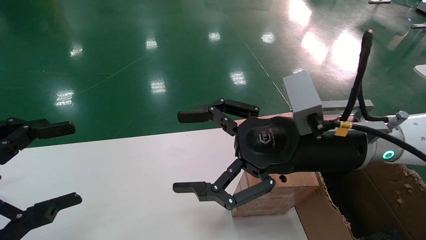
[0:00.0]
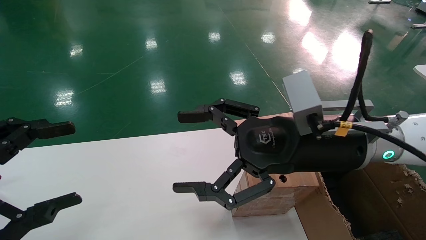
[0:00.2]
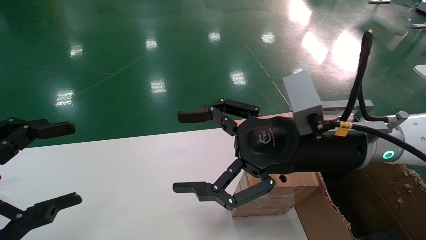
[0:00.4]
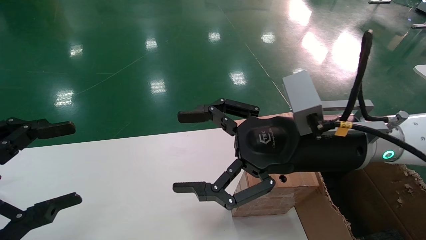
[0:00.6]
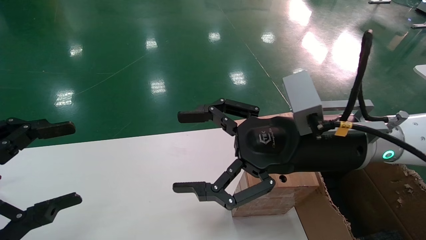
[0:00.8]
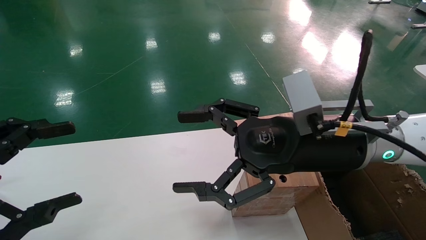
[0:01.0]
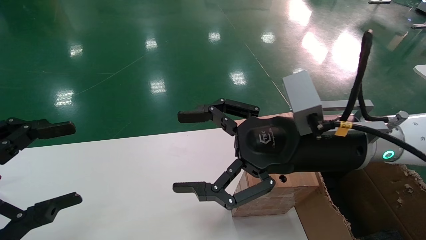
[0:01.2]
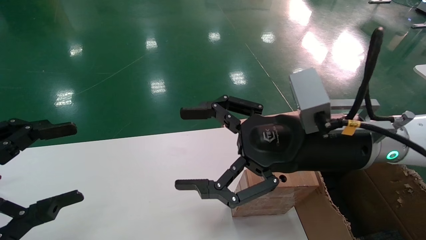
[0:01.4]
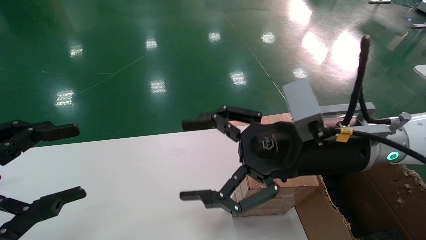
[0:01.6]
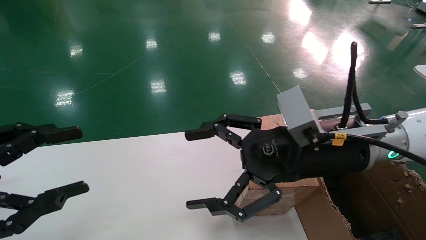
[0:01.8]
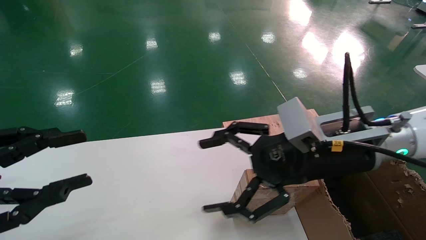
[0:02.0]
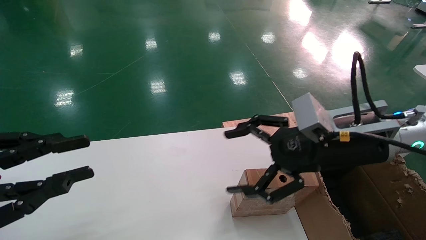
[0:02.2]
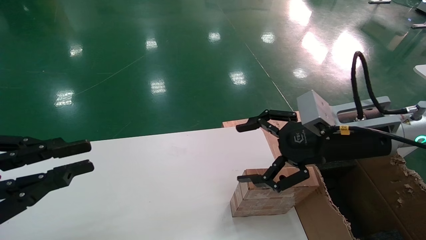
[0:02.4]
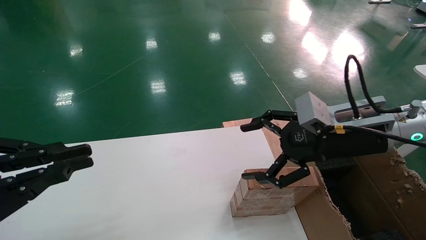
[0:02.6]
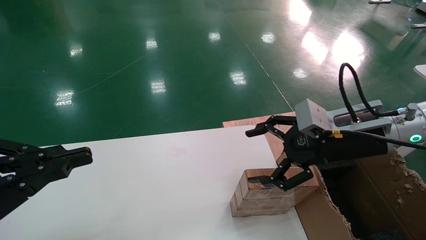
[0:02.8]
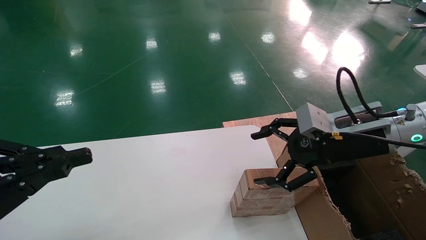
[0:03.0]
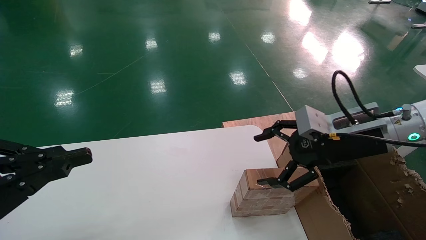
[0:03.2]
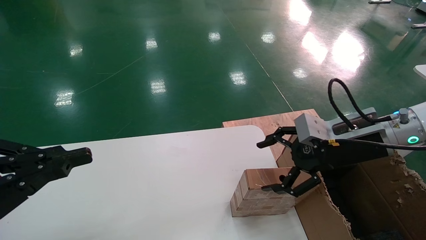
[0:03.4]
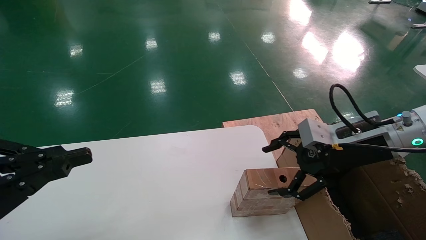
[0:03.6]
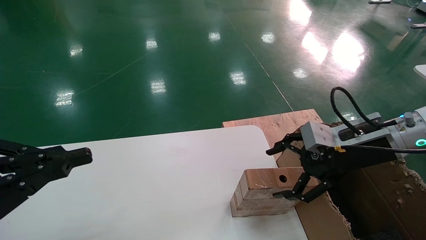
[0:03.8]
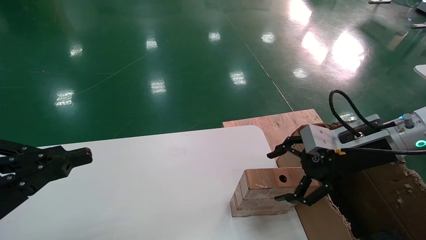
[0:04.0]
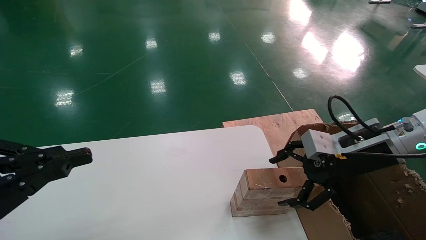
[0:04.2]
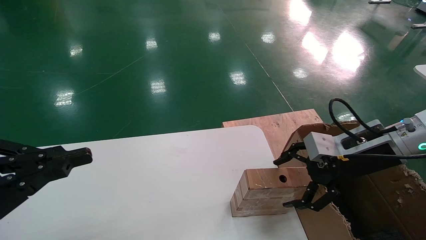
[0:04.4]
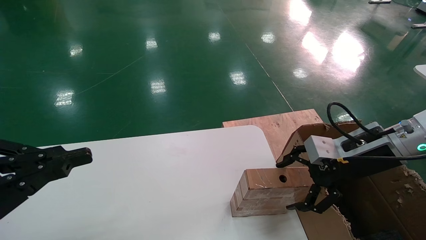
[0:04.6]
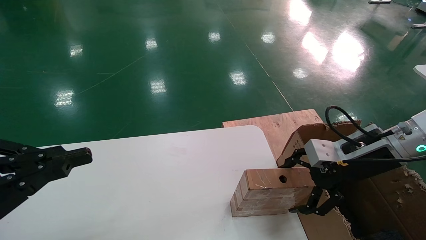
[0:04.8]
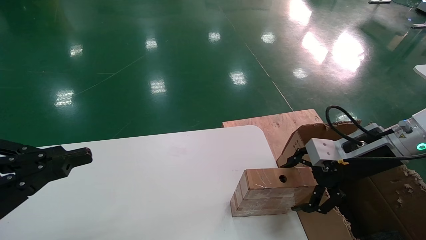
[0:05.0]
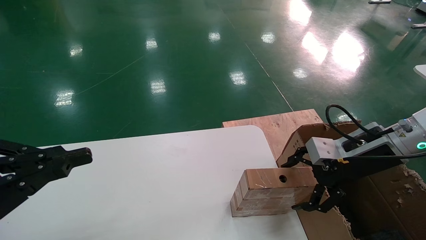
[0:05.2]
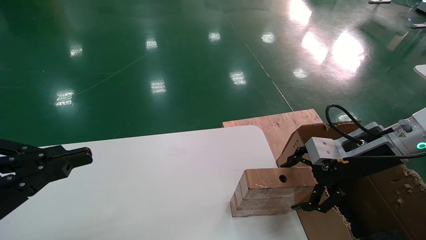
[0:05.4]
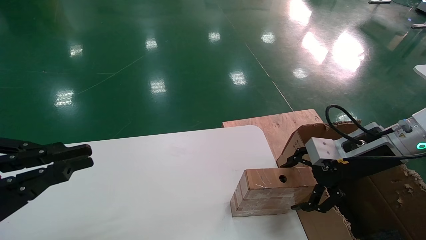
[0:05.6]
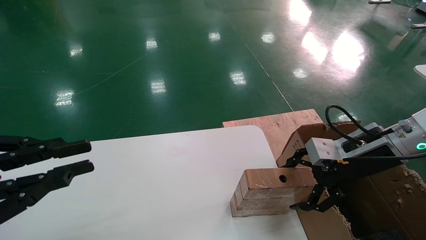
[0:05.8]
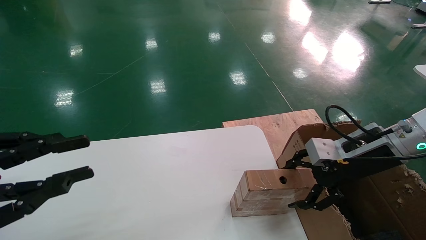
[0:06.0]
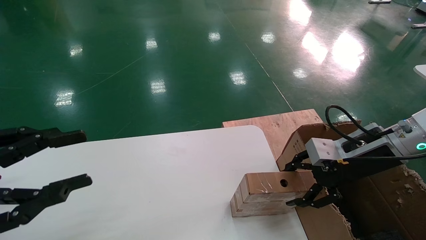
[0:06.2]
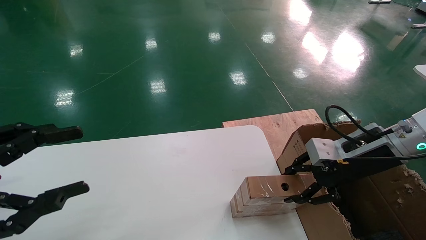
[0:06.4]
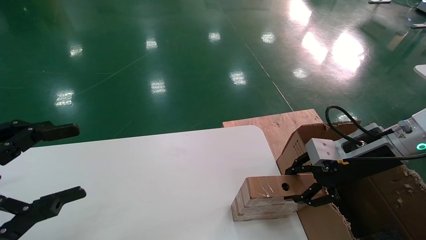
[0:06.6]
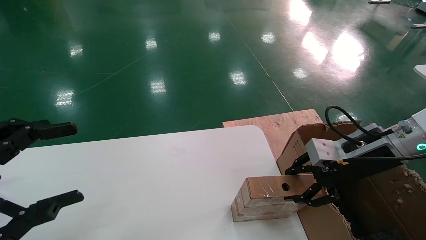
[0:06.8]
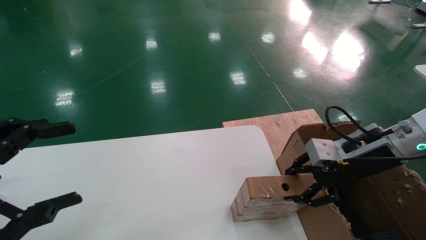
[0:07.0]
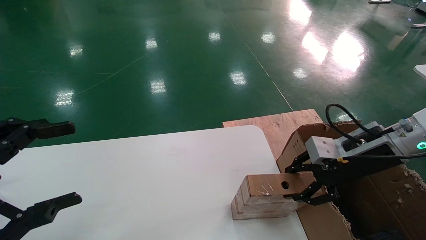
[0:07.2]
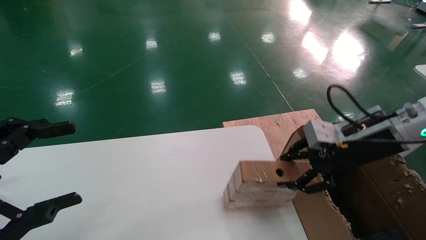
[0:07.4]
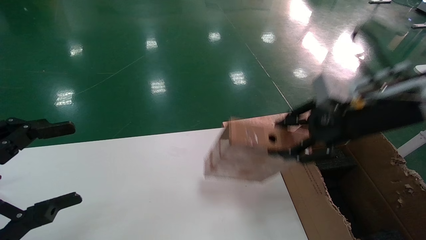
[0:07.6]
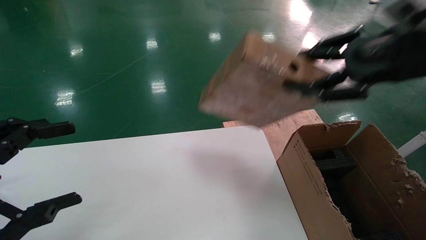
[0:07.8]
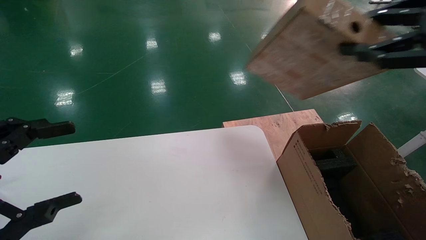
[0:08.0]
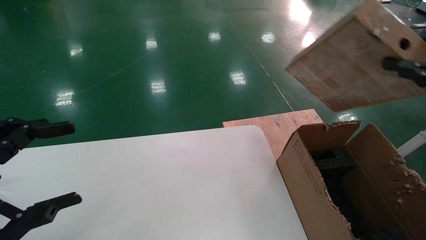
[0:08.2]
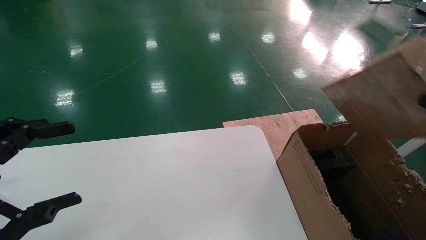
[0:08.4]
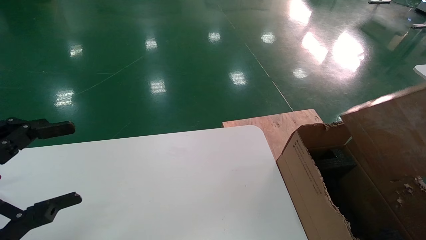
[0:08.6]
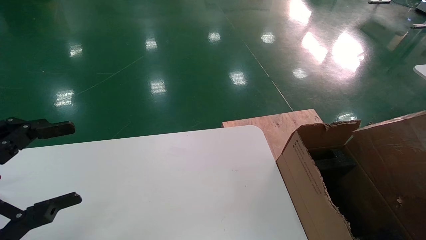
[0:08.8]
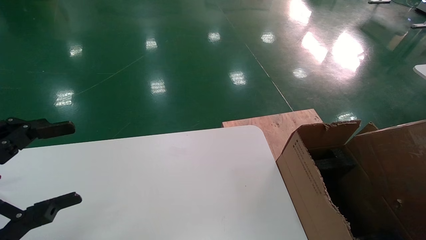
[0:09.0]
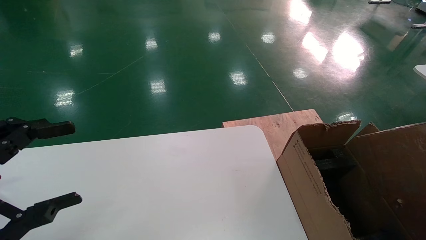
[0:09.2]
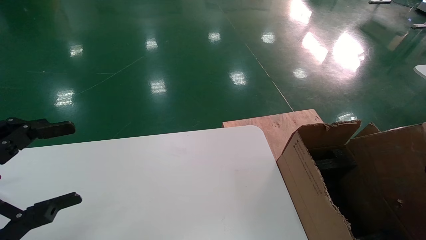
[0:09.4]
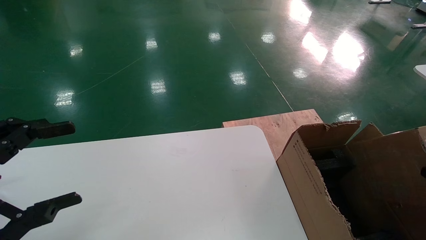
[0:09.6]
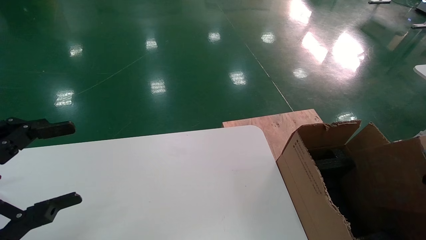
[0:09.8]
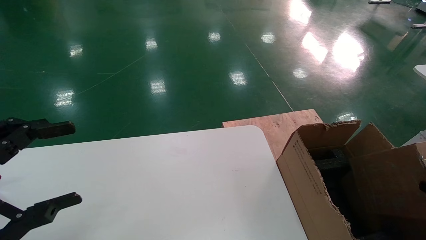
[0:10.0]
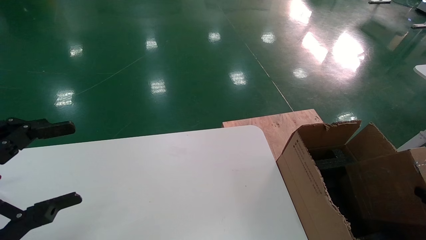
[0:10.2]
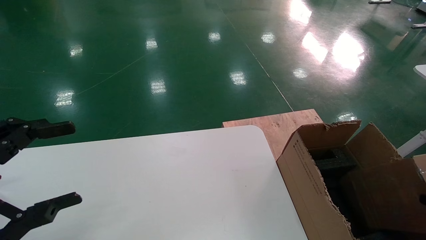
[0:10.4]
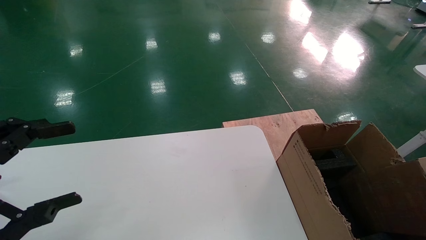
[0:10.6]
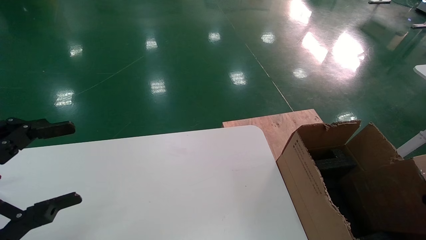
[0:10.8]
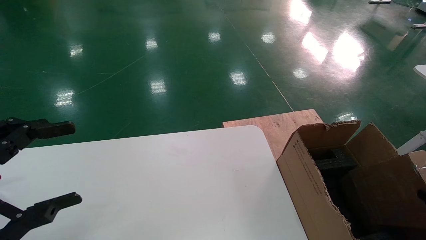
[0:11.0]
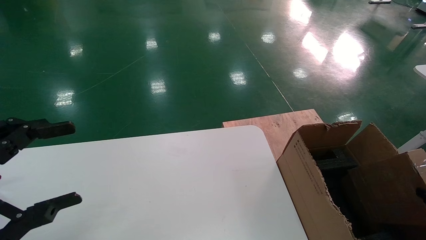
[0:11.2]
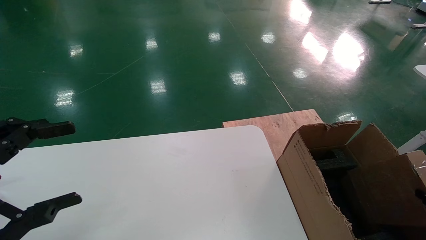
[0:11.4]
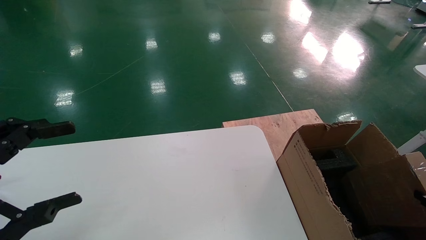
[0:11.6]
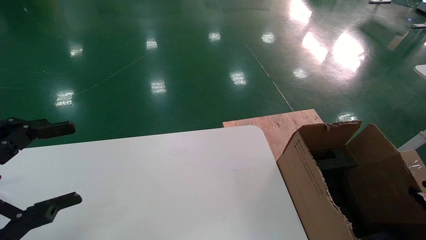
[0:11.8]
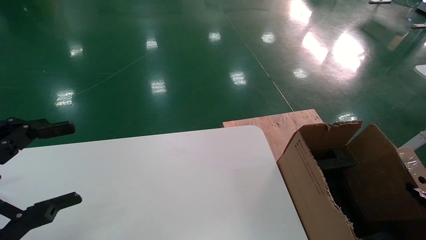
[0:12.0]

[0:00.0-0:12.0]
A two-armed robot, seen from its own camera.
Task of the whole recording: put the box on the table into the big box.
Step, 0:01.8 to 0:06.6: Pick up the mouse and the power cord paper box.
0:00.0 to 0:01.6: Both grippers stay put.
0:01.6 to 0:03.0: The right gripper heads to the right, covering roughly 10 cm, while the left gripper closes up.
0:03.0 to 0:04.4: The grippers stay close to where they were, moving slightly.
0:04.4 to 0:06.0: The grippers stay close to where they were, moving slightly.
0:06.0 to 0:07.6: The right gripper travels upward by roughly 10 cm, and closes up, while the left gripper opens its fingers.
0:07.6 to 0:09.0: The right gripper moves backward, to the right and downward, about 35 cm.
0:09.0 to 0:10.4: The right gripper travels downward by roughly 10 cm.
0:10.4 to 0:12.0: The right gripper goes roughly 5 cm forward.

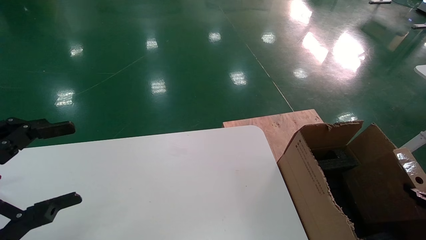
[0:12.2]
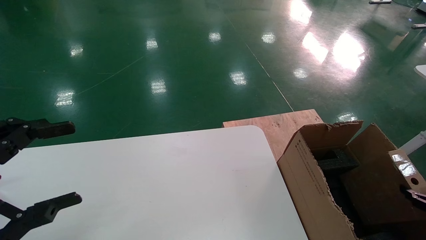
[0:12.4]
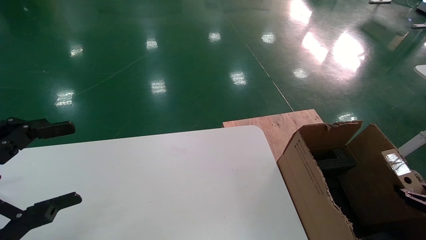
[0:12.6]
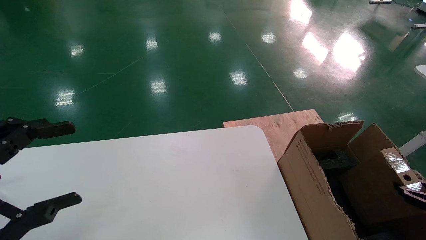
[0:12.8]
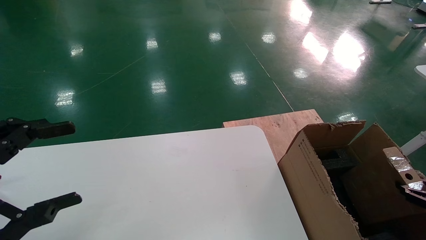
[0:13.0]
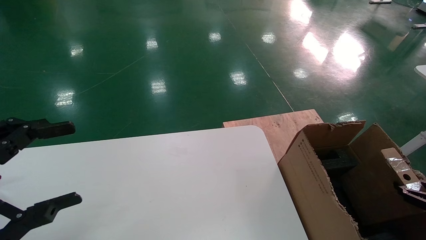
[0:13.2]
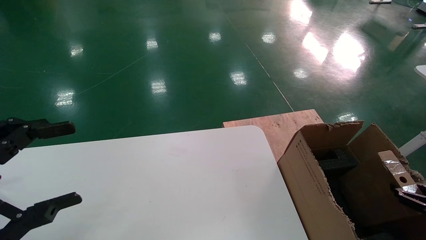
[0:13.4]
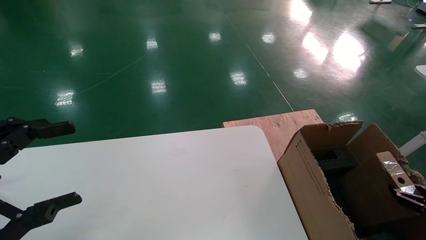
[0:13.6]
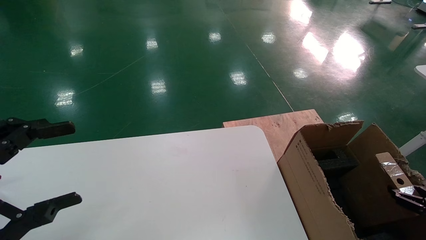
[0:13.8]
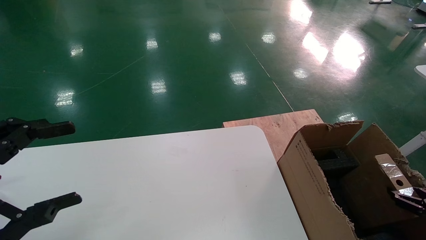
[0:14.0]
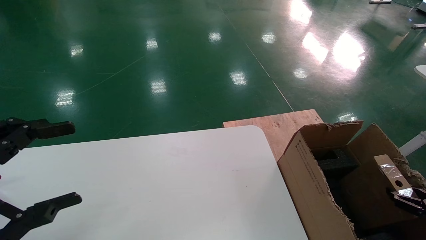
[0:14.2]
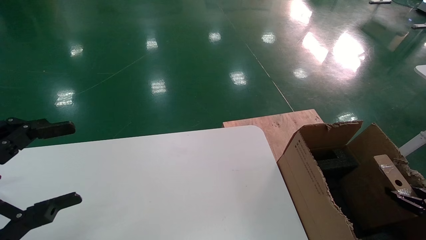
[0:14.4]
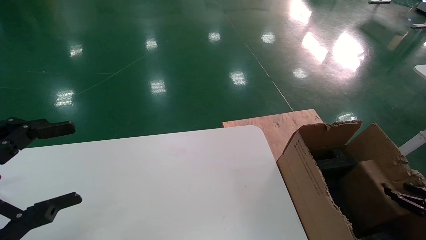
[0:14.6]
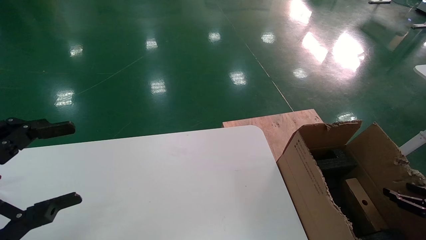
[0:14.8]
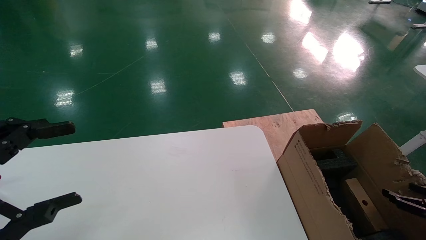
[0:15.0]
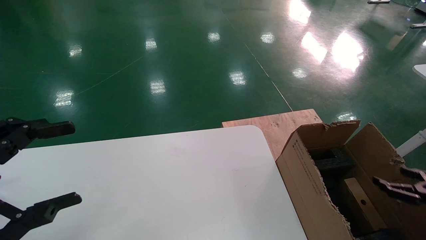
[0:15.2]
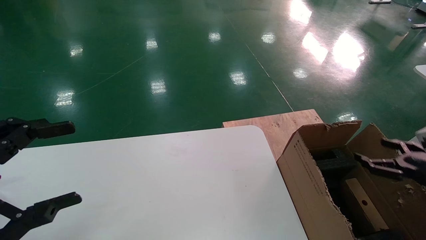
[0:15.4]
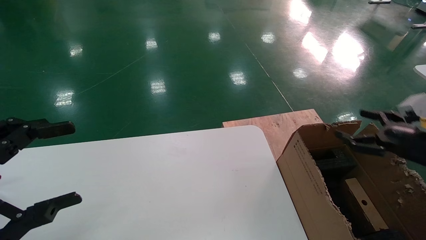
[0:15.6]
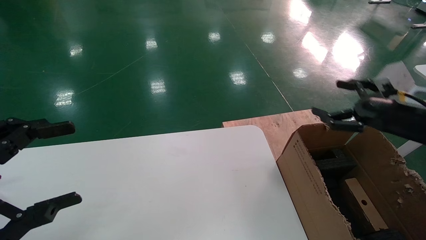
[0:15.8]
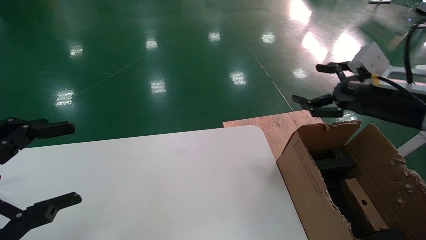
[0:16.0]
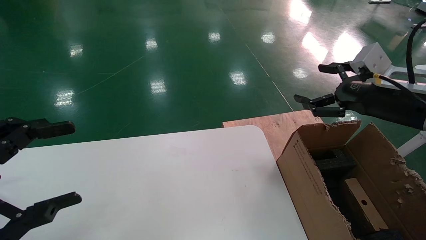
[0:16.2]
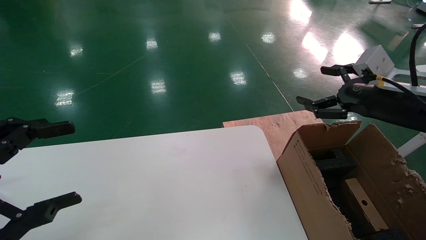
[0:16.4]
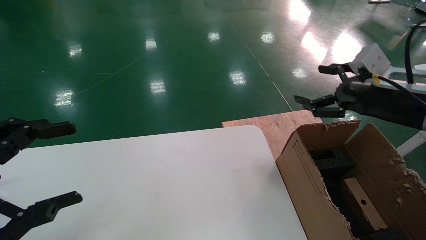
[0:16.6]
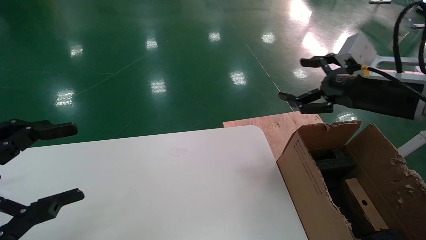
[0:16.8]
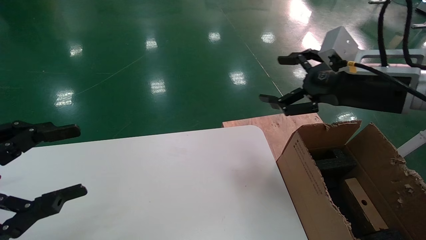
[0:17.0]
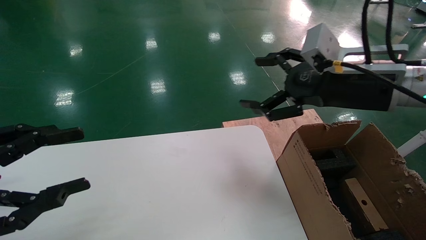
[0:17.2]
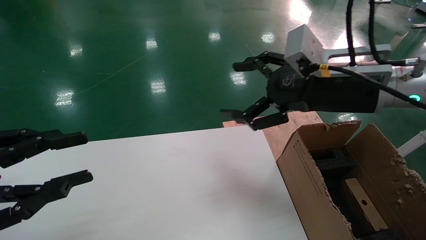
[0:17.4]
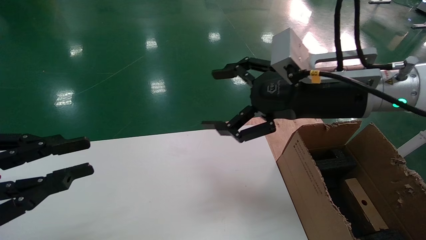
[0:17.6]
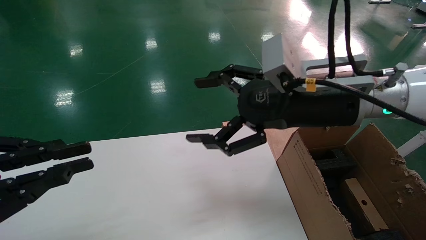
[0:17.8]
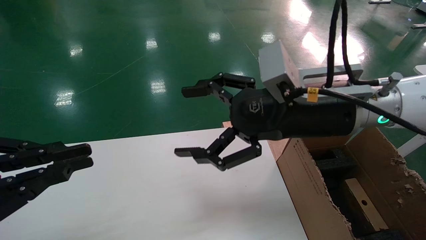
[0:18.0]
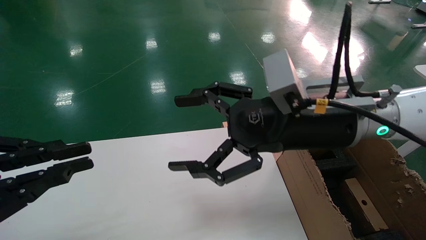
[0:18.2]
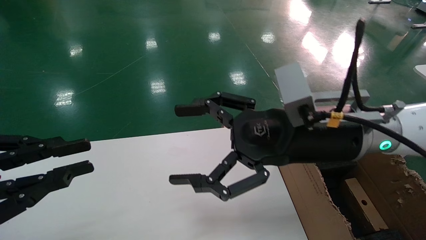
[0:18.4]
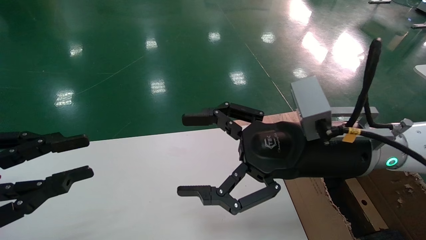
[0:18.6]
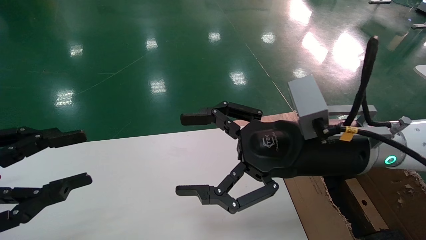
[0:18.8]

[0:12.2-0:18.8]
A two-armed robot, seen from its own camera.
Task of the whole recording: put the box on the table into the big box.
Step, 0:12.2 to 0:14.8: Place the mouse and the power cord paper box into the container.
0:12.2 to 0:13.8: The grippers stay close to where they were, moving slightly.
0:13.8 to 0:15.4: The right gripper travels upward, to the left and forward by about 10 cm, and opens.
0:15.4 to 0:17.2: The right gripper is displaced to the left and upward by roughly 30 cm.
0:17.2 to 0:18.8: The right gripper heads to the left and downward, covering approximately 10 cm.
